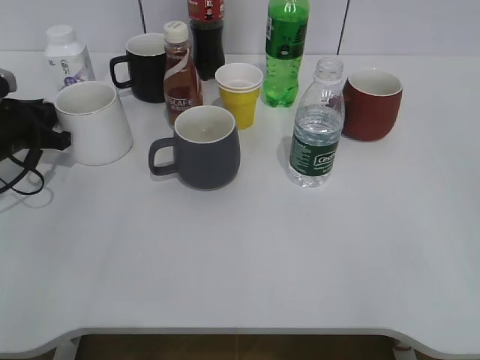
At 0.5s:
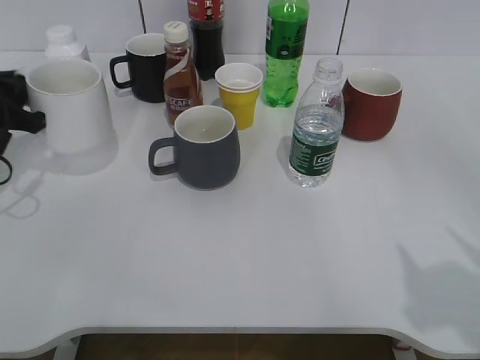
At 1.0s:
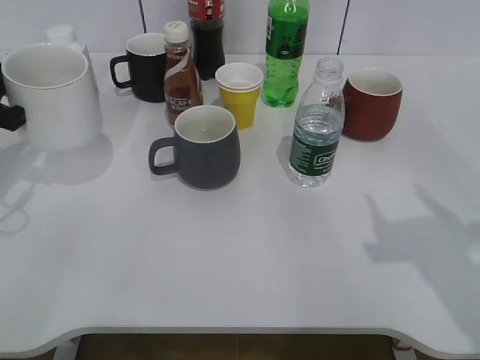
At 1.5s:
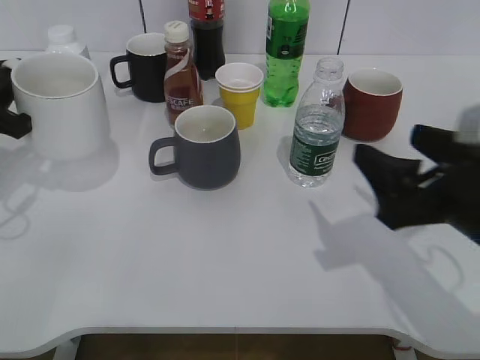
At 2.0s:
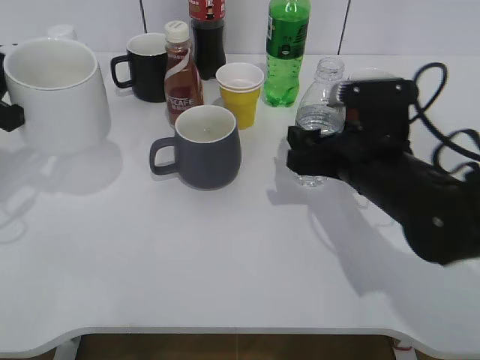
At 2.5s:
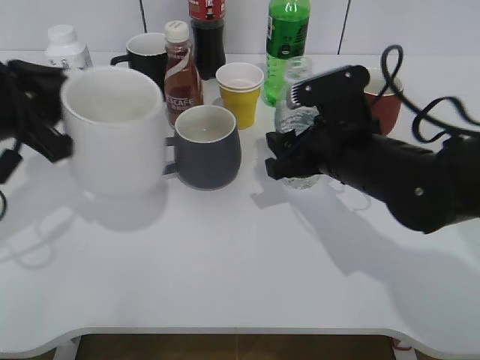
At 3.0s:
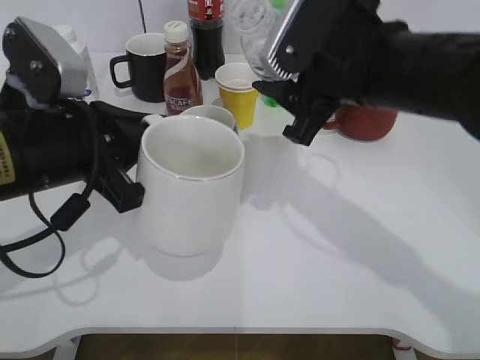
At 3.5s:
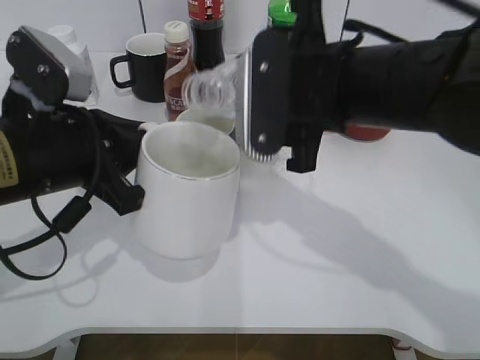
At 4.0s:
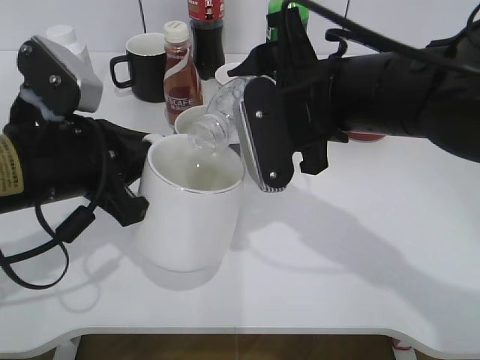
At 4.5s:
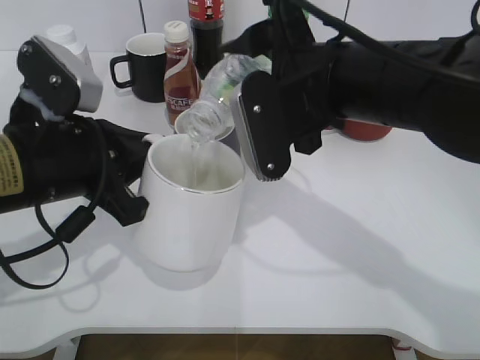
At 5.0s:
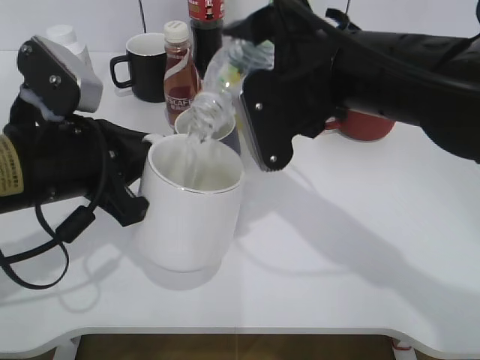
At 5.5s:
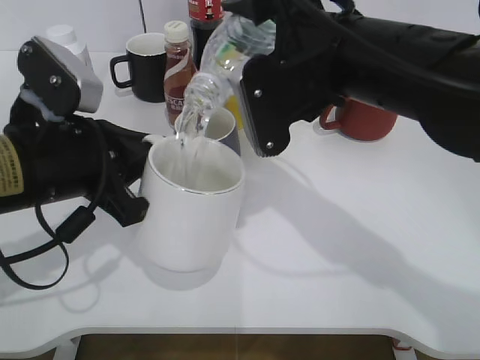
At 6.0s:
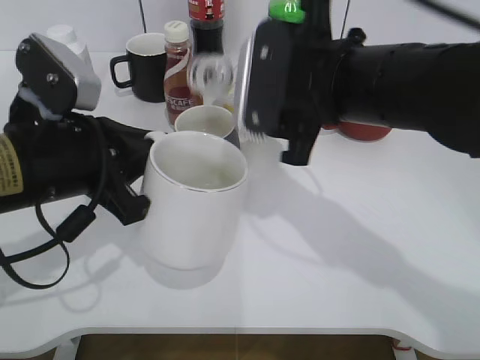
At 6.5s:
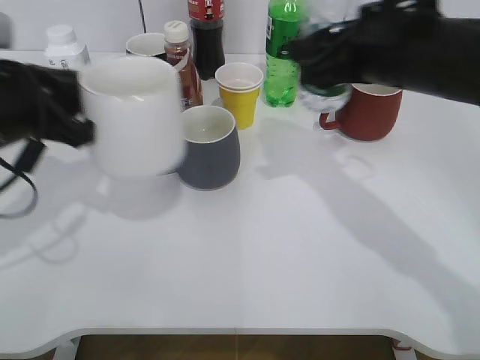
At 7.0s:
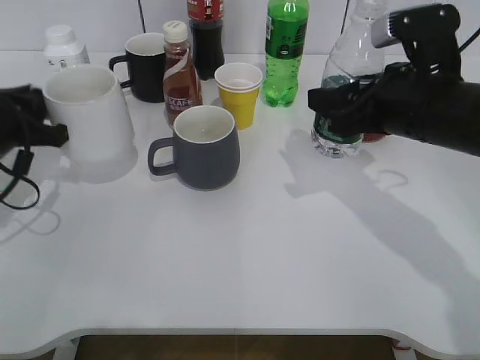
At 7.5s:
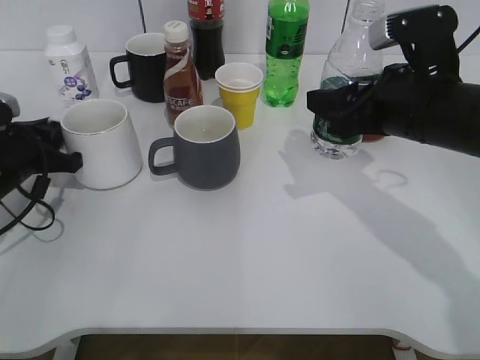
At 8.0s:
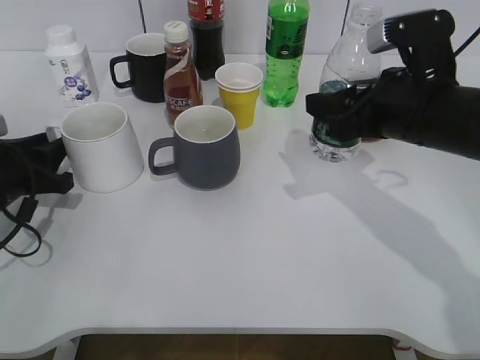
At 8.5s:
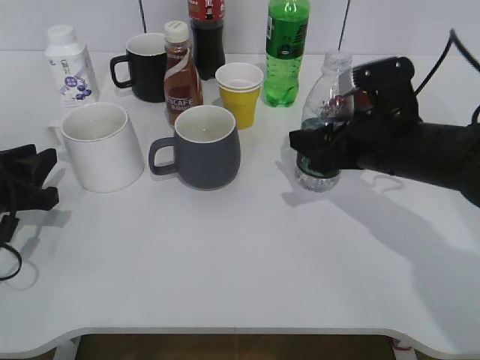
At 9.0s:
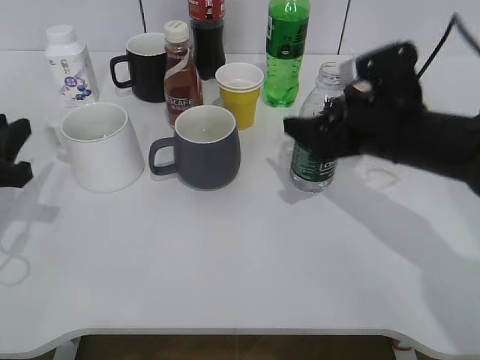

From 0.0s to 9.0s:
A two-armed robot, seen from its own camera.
Step, from 0.5s to 1.0s: Lift the white cup with left gripper.
Step, from 1.5s to 2.0s: Grasp the bottle with water with right gripper.
Step, from 2.5s to 6.0s: Pour the water from bottle to cup with right gripper.
Step, from 6.5s to 7.5s: Place the white cup on the table with left gripper.
Step, from 8.0s to 8.5s: Place the water bottle on the table with right gripper.
From 0.0s to 2.0s: The left gripper heads upward and backward, covering about 15 cm; the right gripper heads forward, to the left and downward, covering approximately 35 cm.
From 2.0s to 4.5s: The left gripper travels to the right and backward by some 15 cm. Meanwhile the right gripper travels upward and to the left by some 15 cm, and closes its fingers.
From 4.5s to 7.0s: The right gripper heads to the right, covering approximately 10 cm; the left gripper goes roughly 15 cm to the left, forward and downward.
From 7.0s to 9.0s: The right gripper opens its fingers. The left gripper heads backward, covering roughly 5 cm, and opens.

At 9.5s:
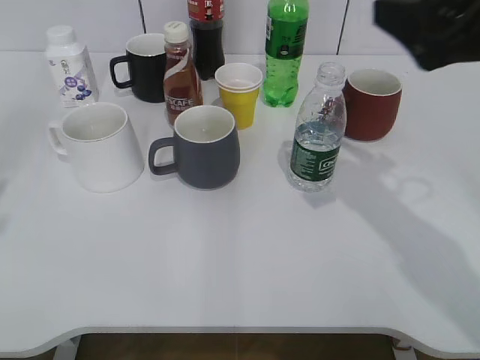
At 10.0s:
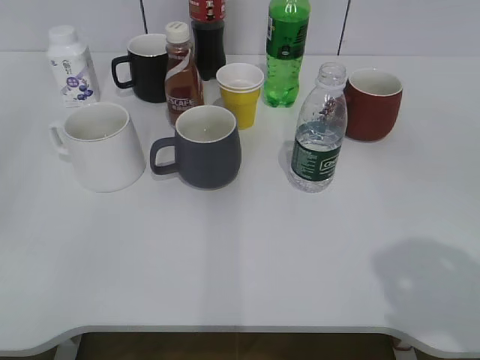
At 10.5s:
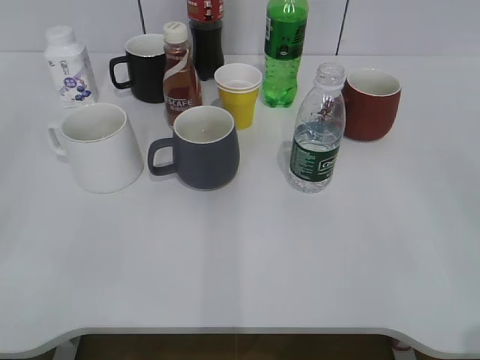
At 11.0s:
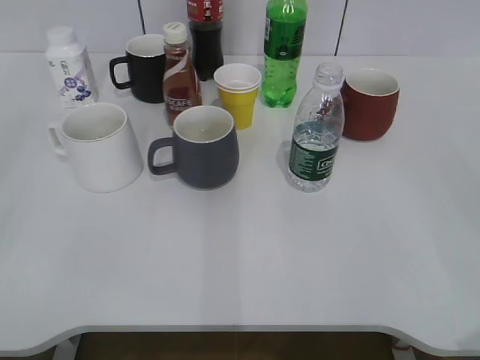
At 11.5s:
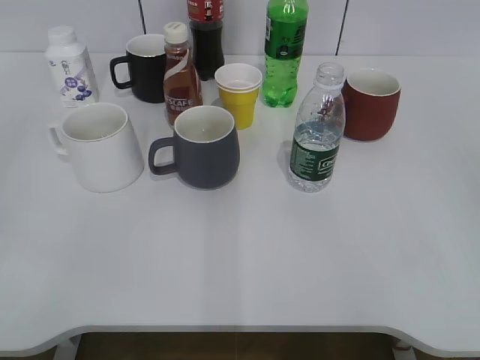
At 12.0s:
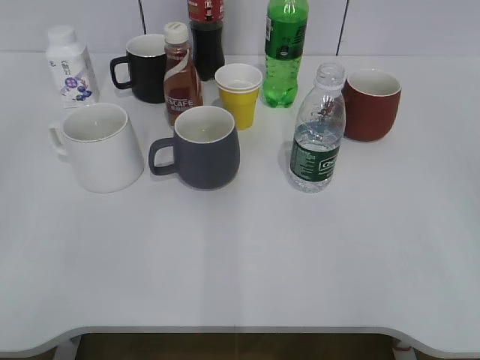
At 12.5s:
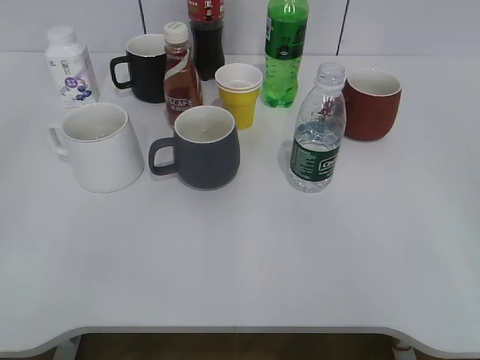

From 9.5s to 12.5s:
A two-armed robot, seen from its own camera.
From 9.5s to 11.0s: The left gripper goes roughly 15 cm backward. The right gripper is displaced backward and to the right by roughly 25 cm.
